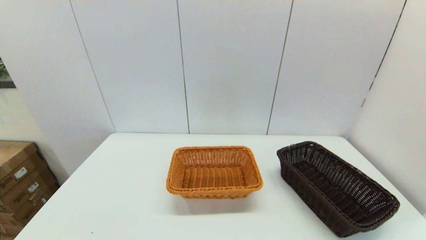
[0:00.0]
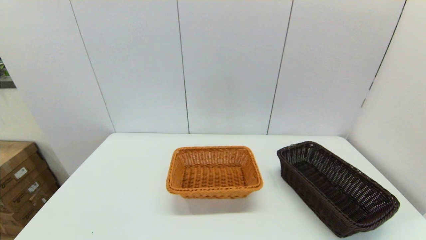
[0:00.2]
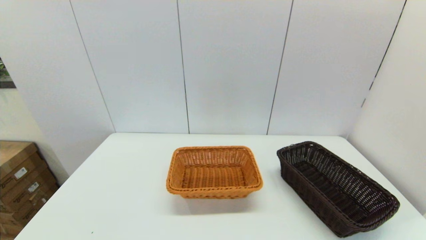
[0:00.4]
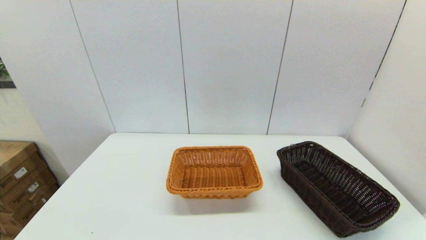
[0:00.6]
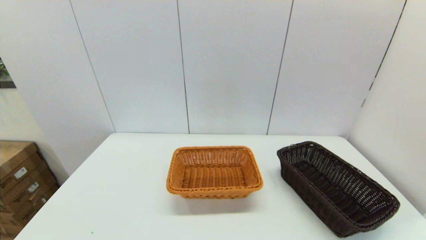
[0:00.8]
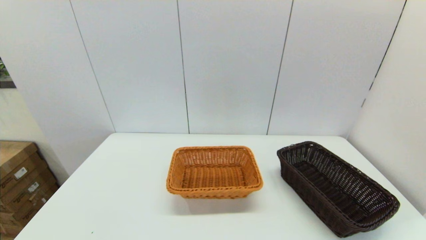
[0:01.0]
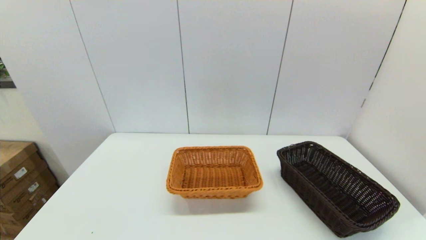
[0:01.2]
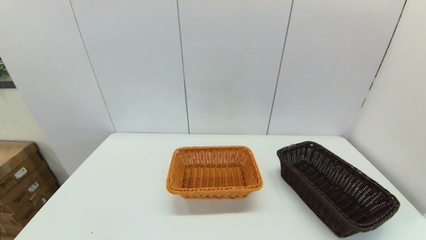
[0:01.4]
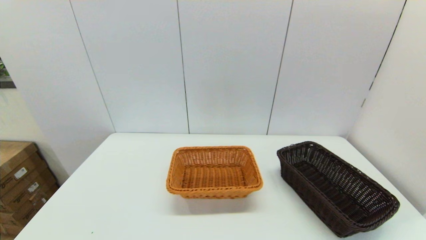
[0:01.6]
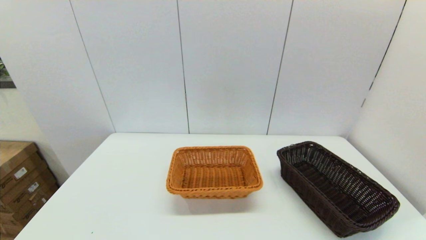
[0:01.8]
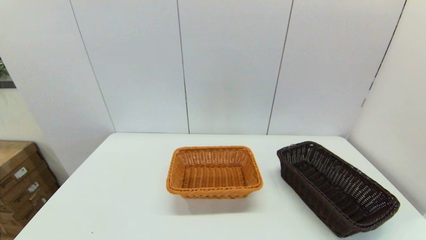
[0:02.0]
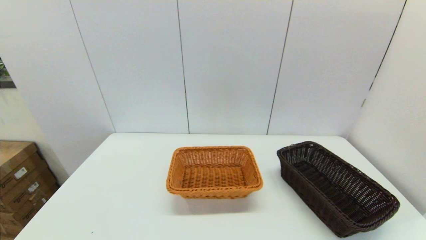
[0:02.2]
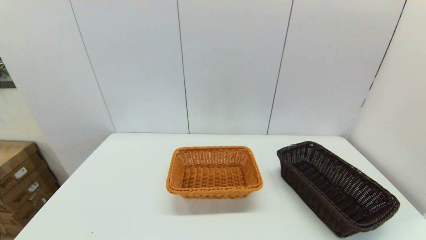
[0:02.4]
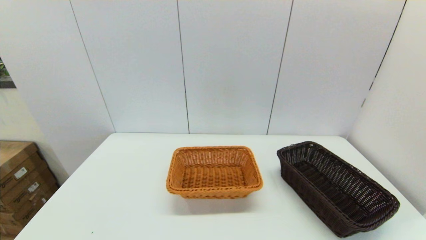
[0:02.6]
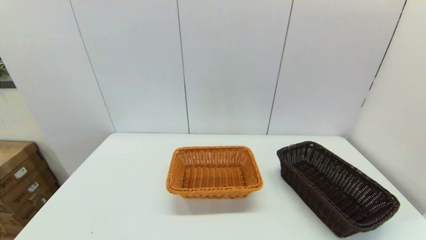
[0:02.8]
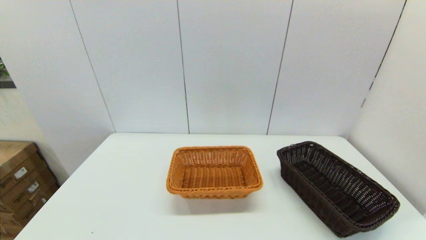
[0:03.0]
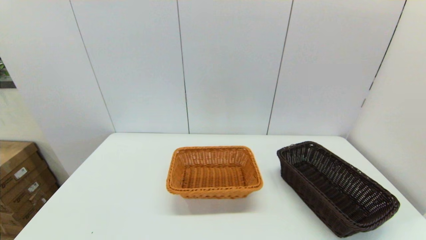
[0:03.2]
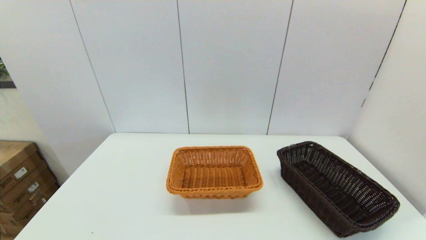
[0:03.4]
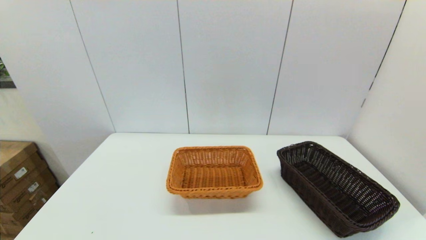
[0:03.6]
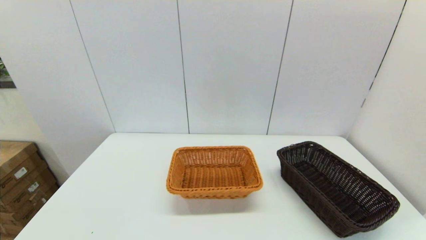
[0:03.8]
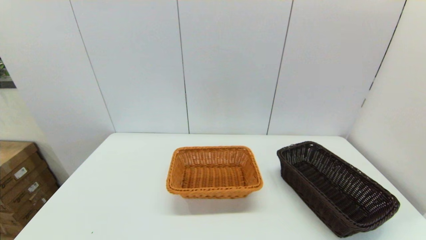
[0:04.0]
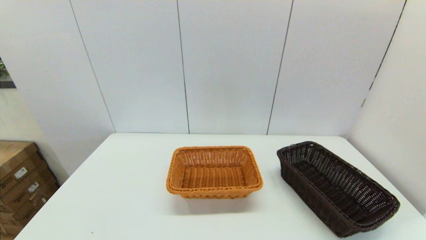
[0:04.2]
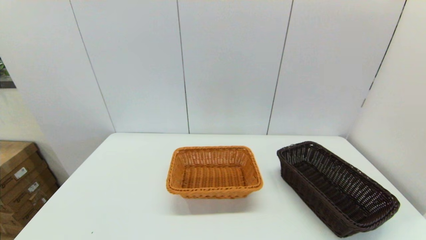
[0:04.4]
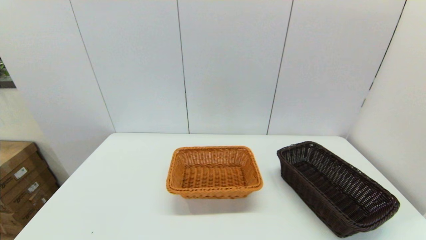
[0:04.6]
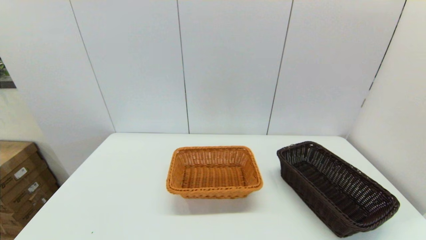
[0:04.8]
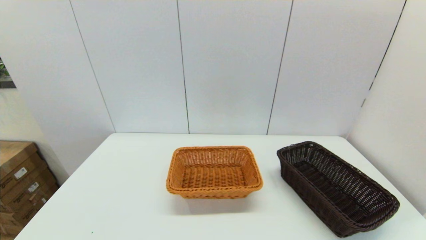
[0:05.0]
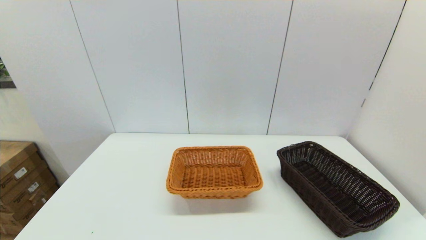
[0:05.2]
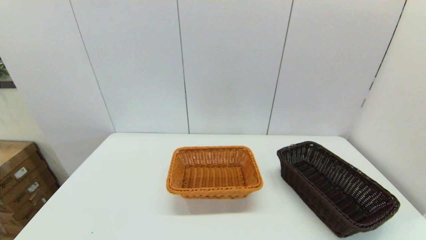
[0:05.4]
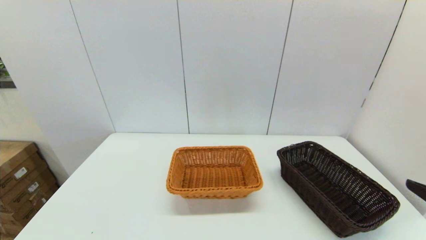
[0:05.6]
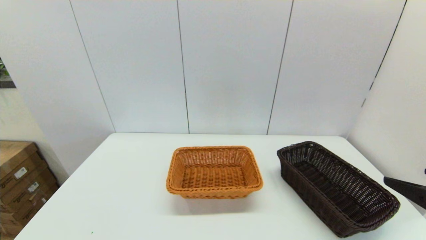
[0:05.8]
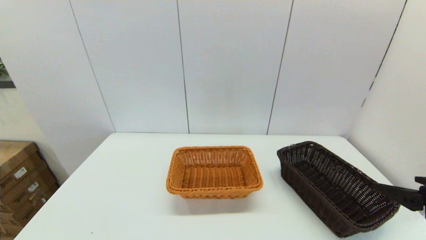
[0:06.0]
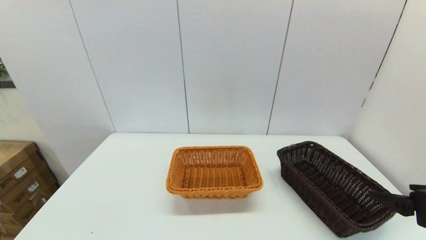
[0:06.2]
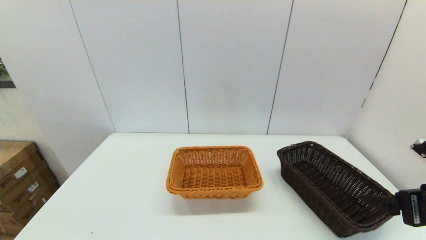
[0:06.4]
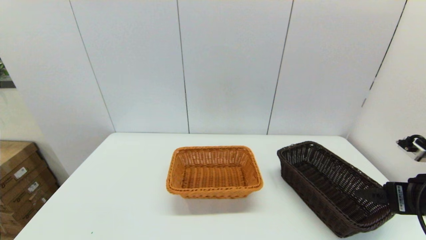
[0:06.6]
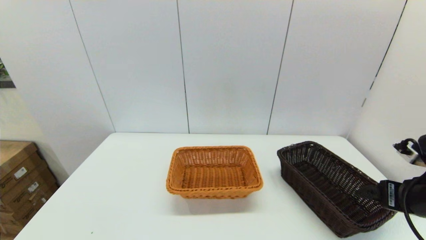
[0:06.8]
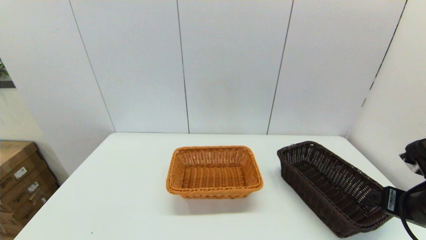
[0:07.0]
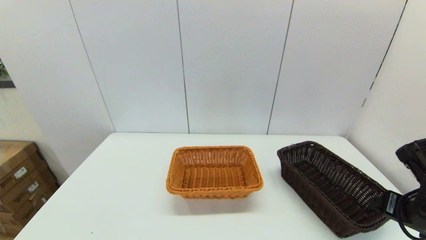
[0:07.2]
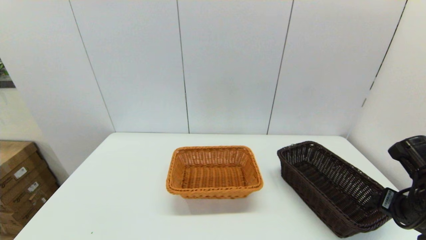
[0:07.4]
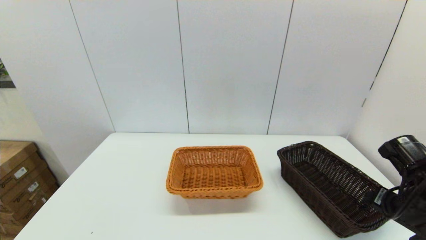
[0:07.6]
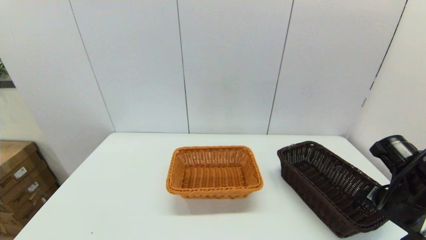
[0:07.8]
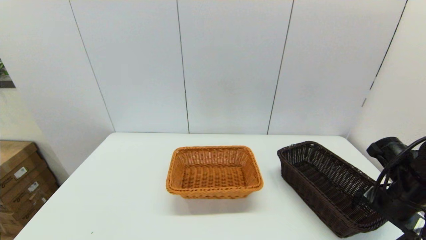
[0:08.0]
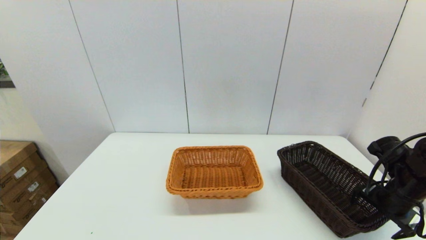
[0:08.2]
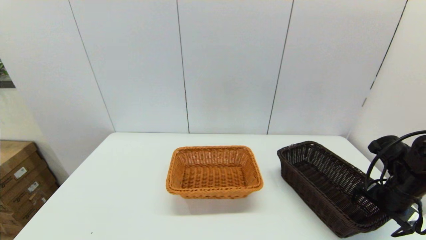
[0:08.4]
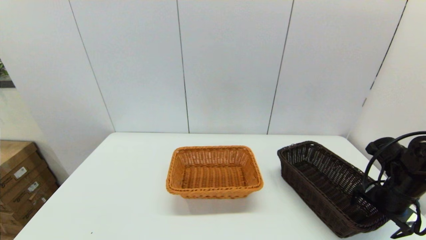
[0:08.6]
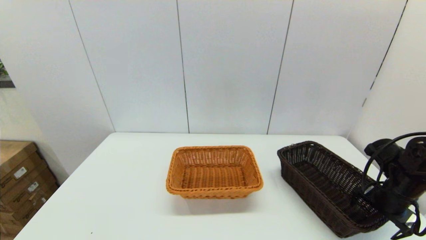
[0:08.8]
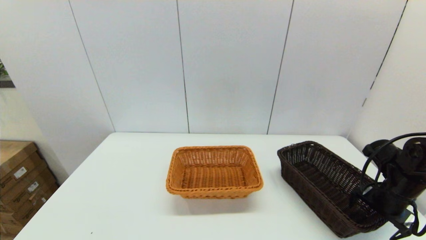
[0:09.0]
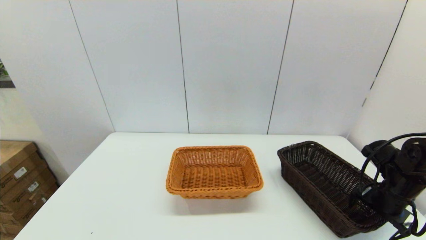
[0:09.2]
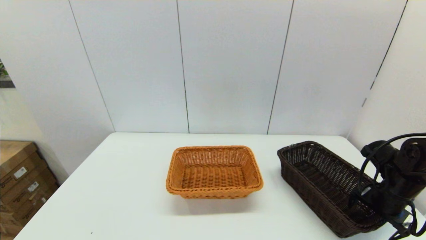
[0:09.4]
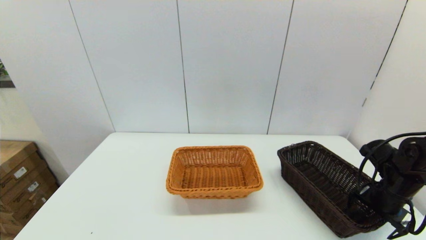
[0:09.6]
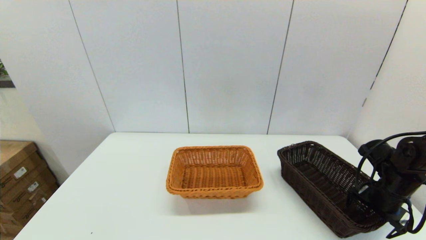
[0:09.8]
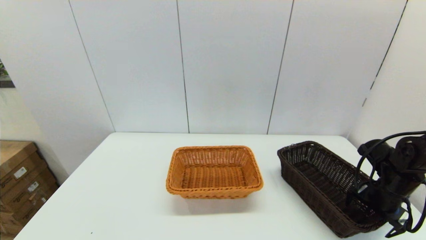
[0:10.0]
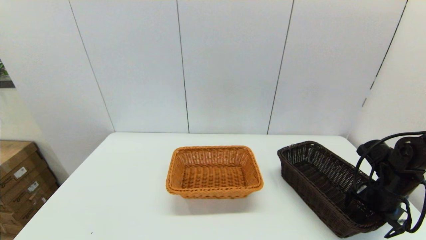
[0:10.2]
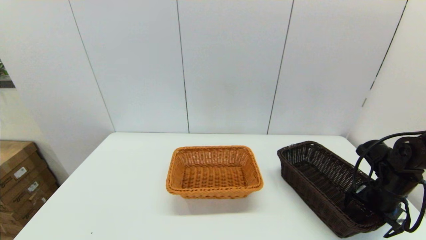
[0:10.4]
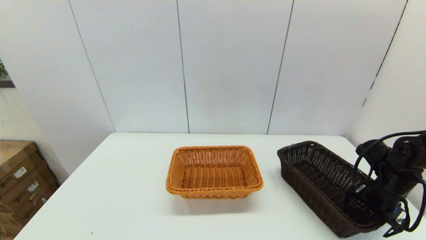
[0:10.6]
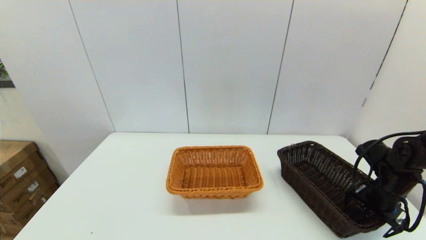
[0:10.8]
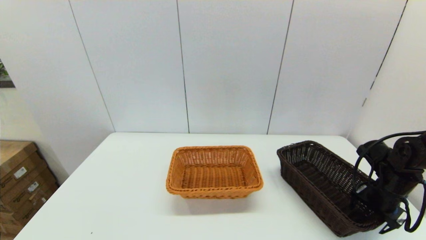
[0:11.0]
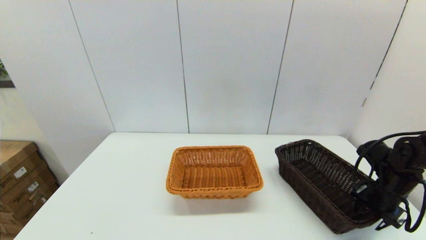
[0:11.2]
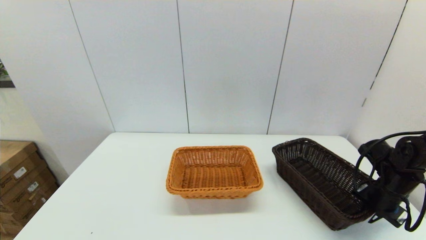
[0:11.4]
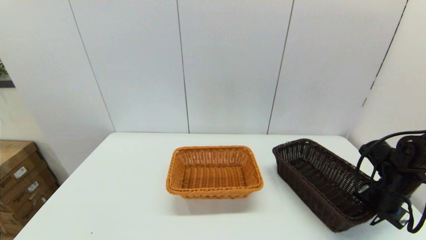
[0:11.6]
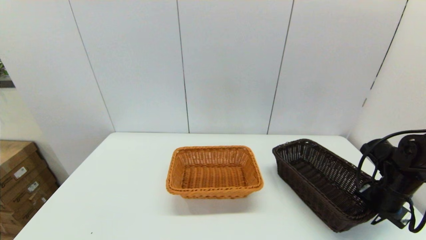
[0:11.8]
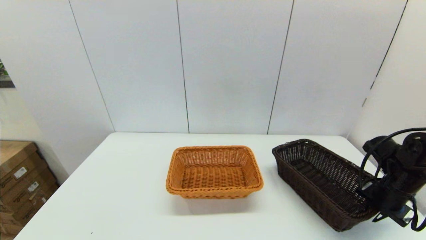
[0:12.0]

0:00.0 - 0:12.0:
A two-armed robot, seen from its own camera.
Task of the whole recording: stack a basket on top of another basket.
0:01.6 - 0:03.0: Both grippers stay about where they are.
0:04.4 - 0:06.0: The right gripper heads forward and upward, covering approximately 15 cm.
0:06.0 - 0:07.6: The right gripper travels forward and downward by approximately 10 cm.
0:07.6 - 0:09.0: The right gripper heads forward and downward, covering some 10 cm.
0:09.0 - 0:10.4: There are only small adjustments of the grippers.
0:10.4 - 0:12.0: The right gripper closes its fingers.

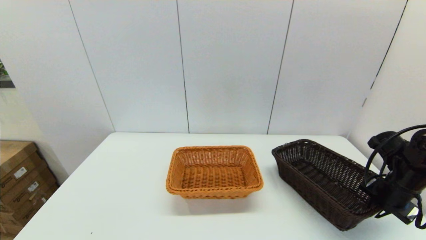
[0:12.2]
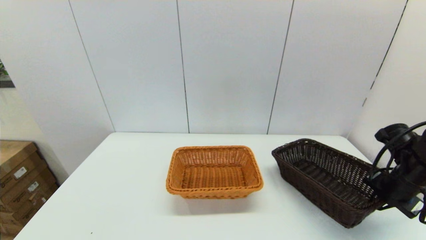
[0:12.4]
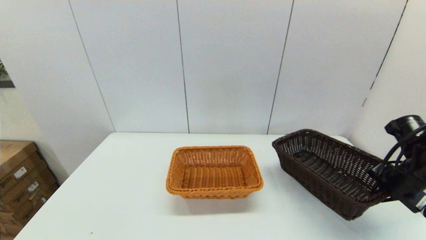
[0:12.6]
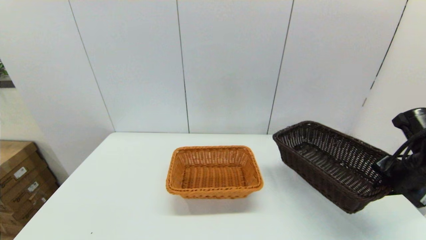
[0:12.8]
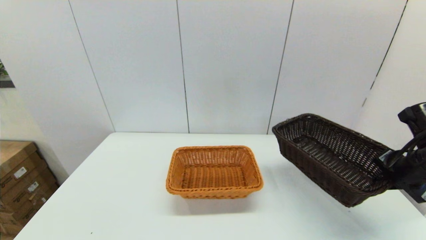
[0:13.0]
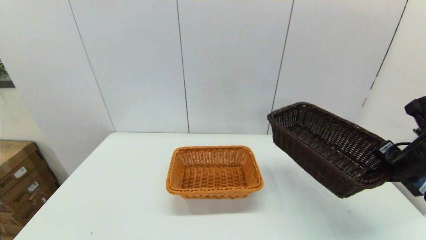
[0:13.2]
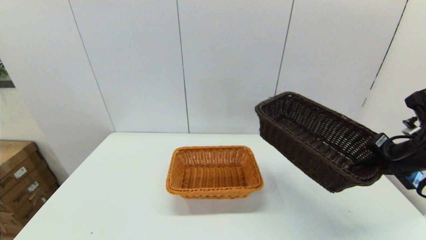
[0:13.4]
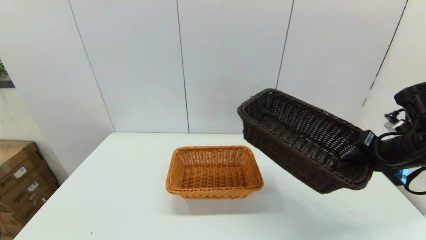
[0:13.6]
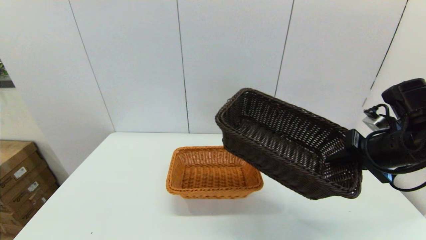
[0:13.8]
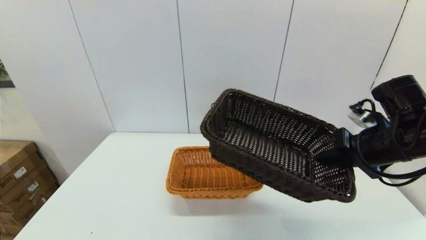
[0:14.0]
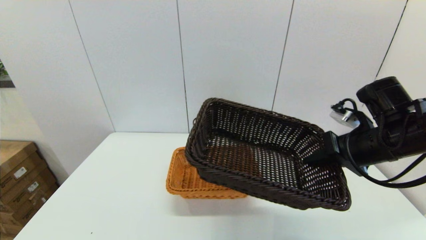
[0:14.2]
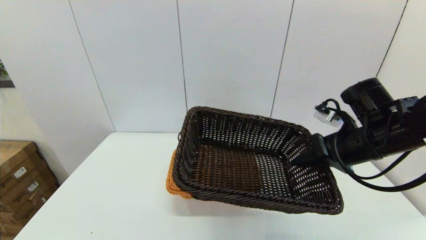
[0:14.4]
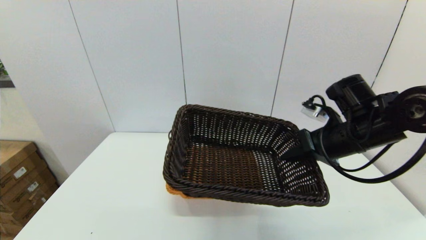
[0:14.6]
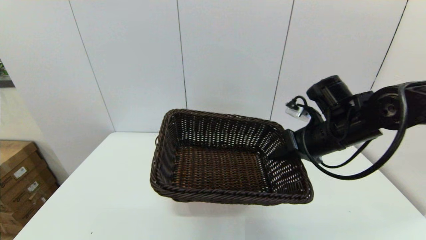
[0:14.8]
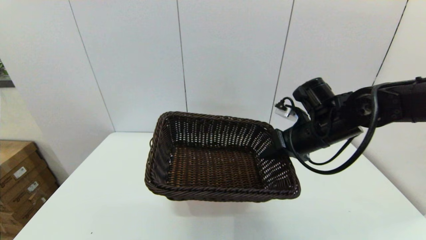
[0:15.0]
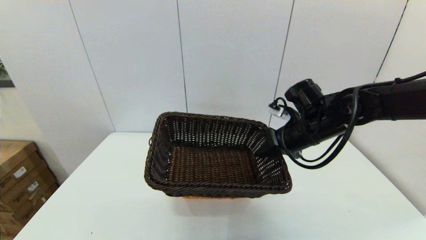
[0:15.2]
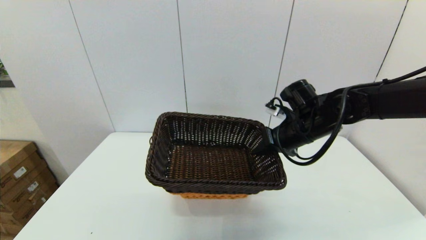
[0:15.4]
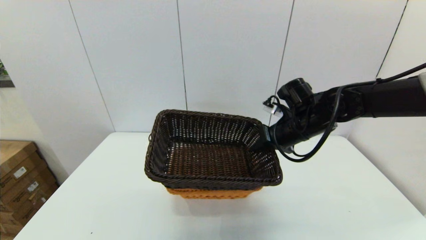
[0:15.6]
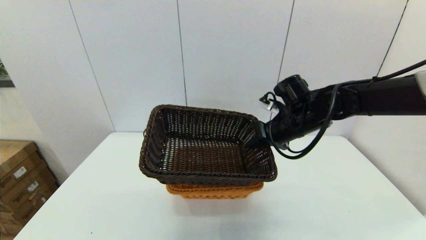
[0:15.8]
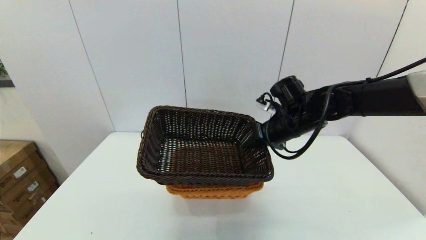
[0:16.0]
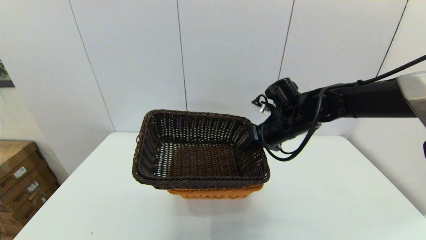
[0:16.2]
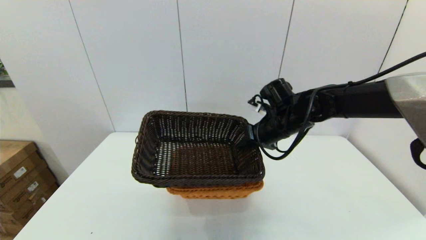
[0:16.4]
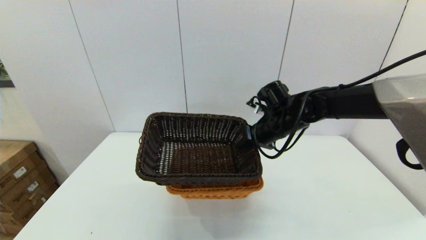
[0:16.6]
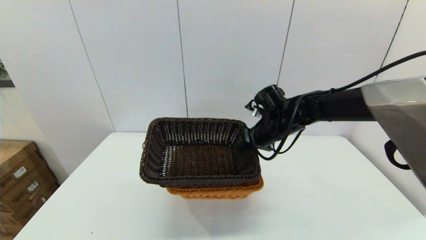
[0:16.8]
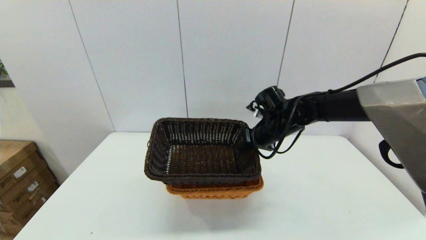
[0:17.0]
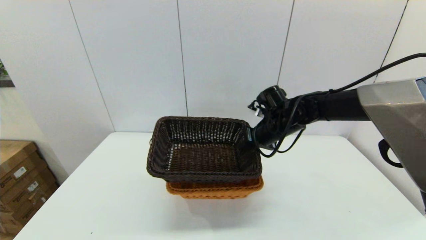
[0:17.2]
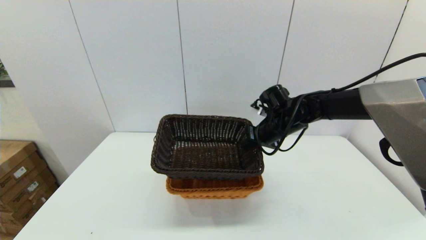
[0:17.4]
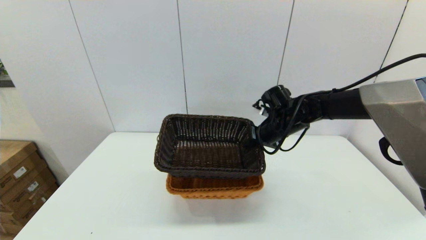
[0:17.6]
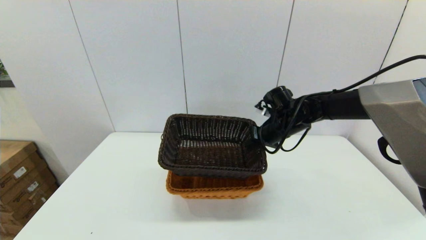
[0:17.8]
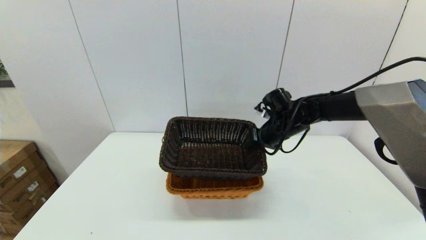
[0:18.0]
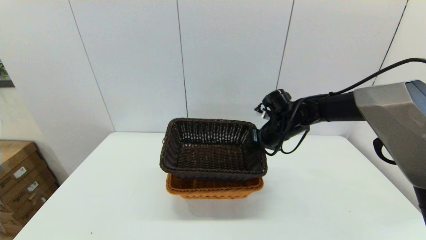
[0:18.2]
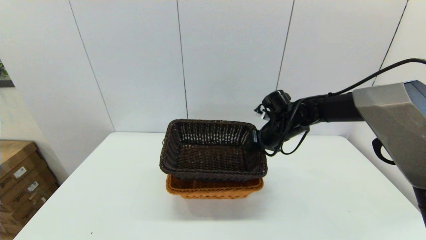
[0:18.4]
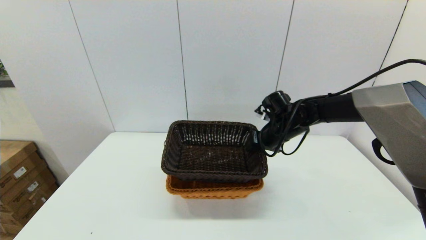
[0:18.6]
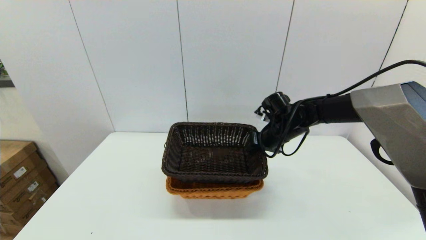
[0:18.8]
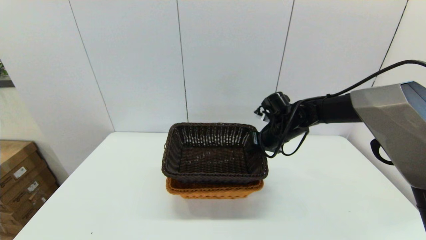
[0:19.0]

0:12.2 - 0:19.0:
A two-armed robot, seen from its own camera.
Task of the whole recording: stack a basket on top of another basket.
0:12.2 - 0:13.6: The right gripper travels upward by some 10 cm.
0:13.6 - 0:15.0: The right gripper is displaced to the left and forward by roughly 15 cm.
0:15.0 - 0:16.2: The right gripper moves approximately 5 cm.
0:16.2 - 0:17.6: The right gripper changes place by roughly 5 cm.
0:17.6 - 0:19.0: The grippers stay close to where they were, moving slightly.
